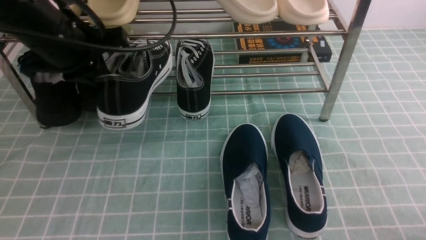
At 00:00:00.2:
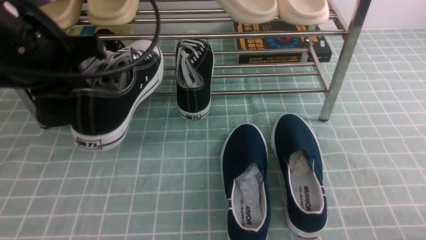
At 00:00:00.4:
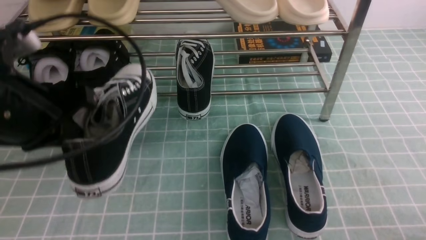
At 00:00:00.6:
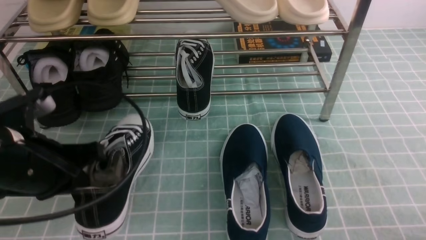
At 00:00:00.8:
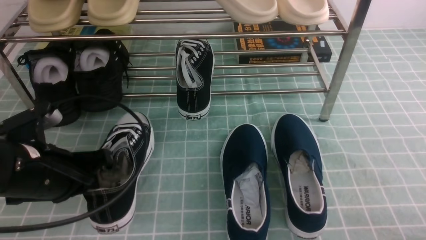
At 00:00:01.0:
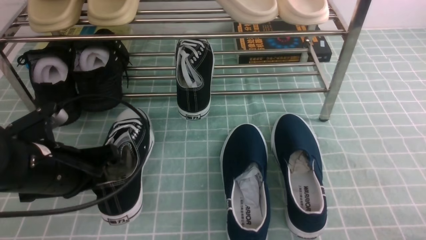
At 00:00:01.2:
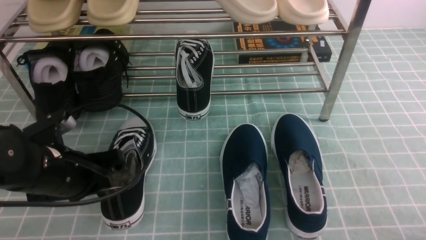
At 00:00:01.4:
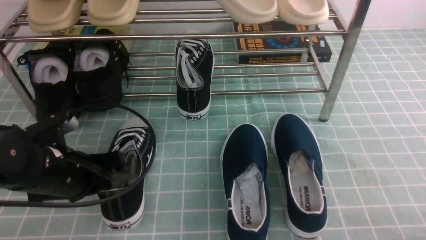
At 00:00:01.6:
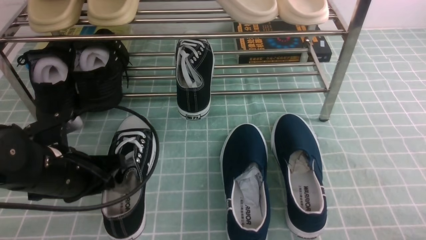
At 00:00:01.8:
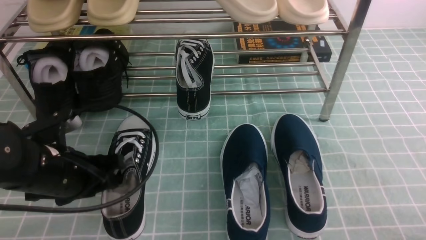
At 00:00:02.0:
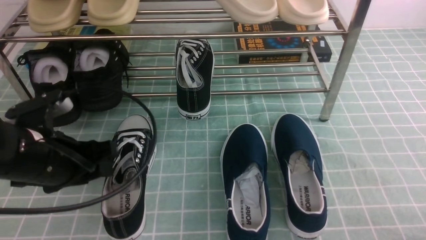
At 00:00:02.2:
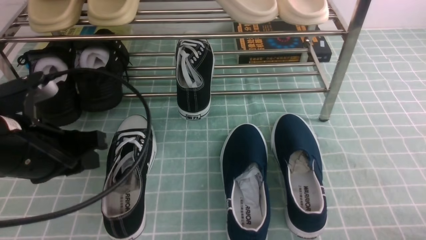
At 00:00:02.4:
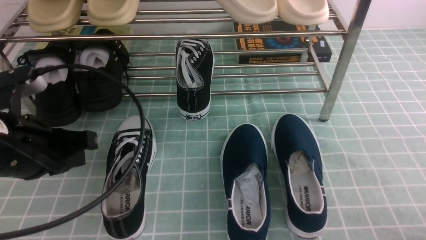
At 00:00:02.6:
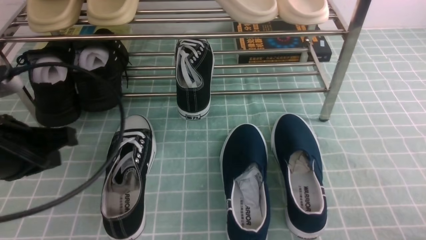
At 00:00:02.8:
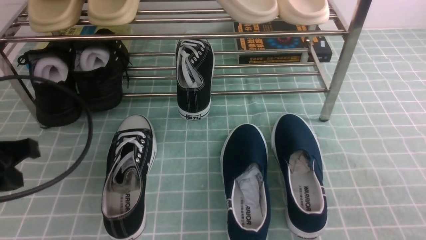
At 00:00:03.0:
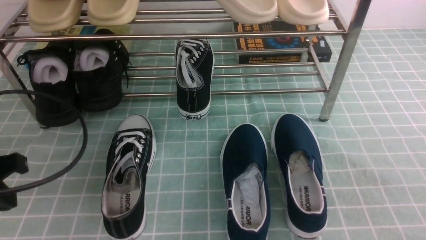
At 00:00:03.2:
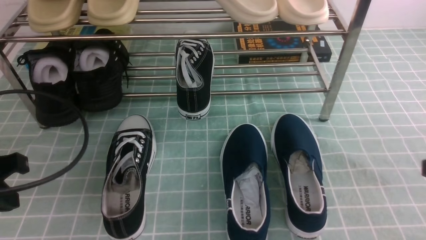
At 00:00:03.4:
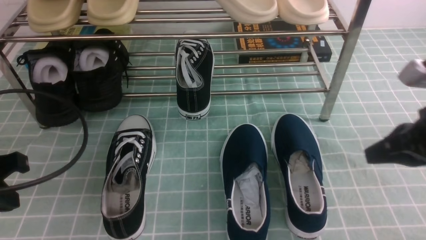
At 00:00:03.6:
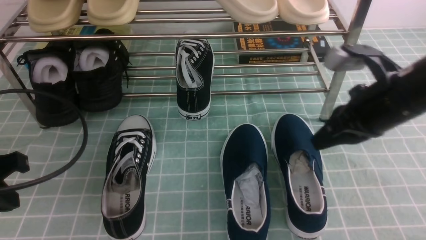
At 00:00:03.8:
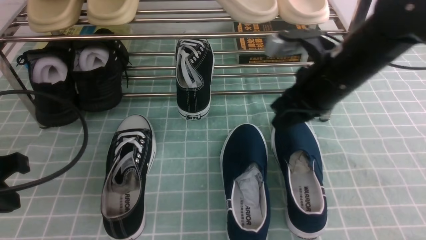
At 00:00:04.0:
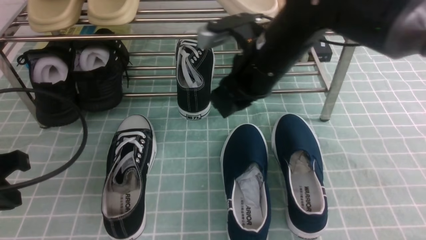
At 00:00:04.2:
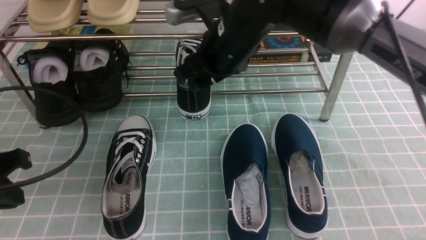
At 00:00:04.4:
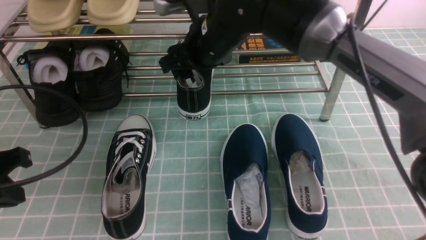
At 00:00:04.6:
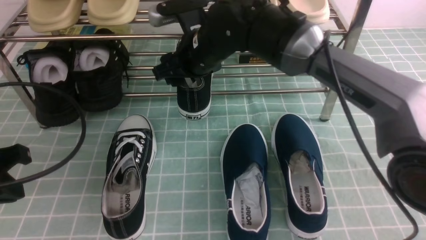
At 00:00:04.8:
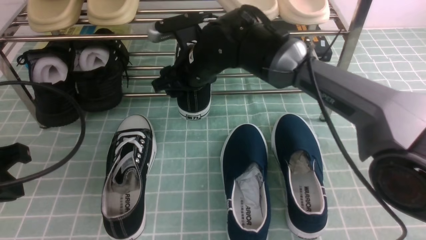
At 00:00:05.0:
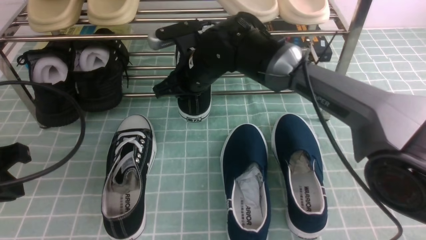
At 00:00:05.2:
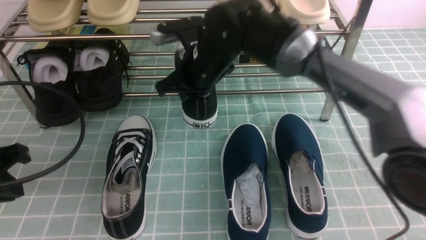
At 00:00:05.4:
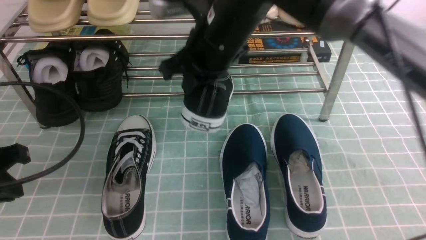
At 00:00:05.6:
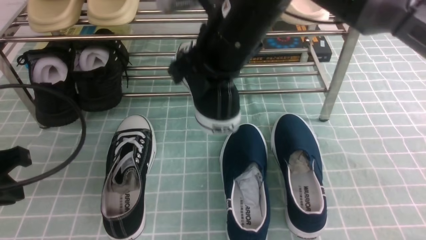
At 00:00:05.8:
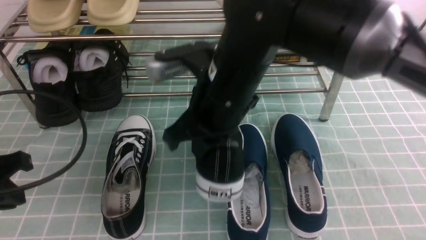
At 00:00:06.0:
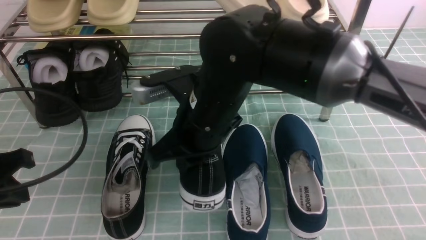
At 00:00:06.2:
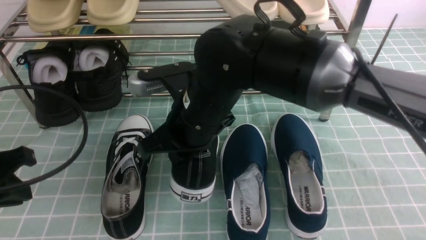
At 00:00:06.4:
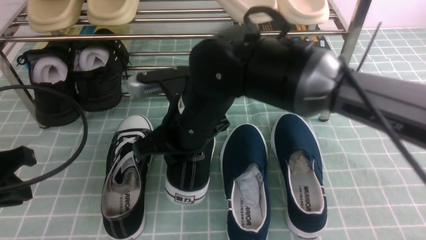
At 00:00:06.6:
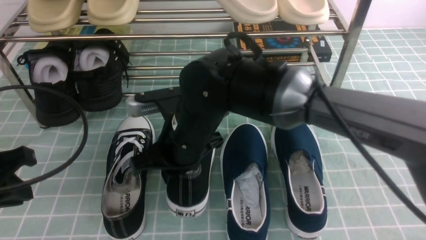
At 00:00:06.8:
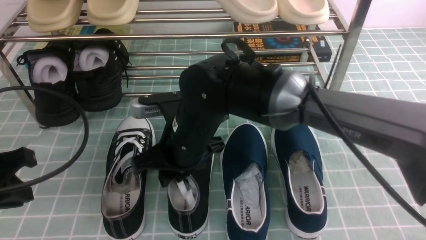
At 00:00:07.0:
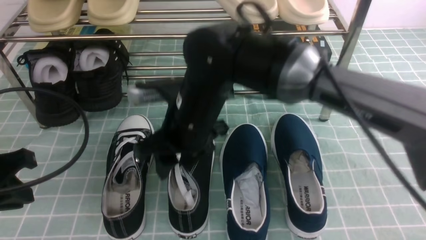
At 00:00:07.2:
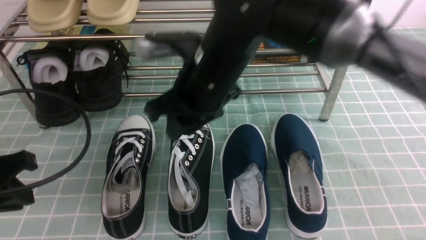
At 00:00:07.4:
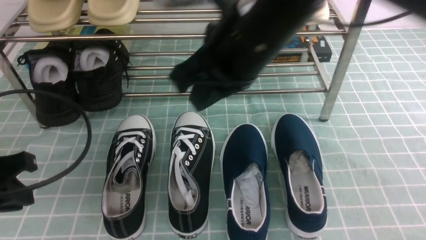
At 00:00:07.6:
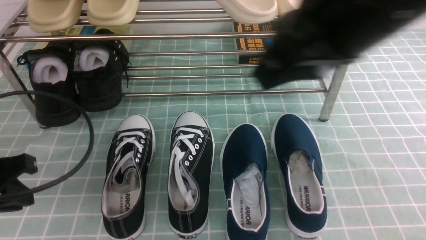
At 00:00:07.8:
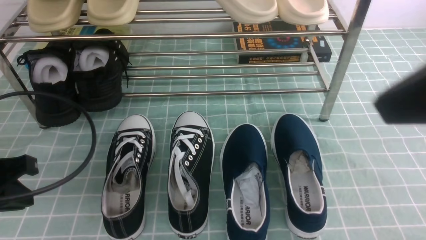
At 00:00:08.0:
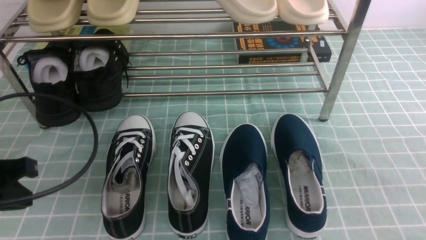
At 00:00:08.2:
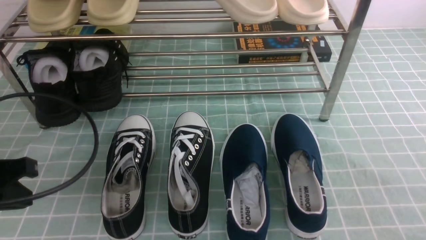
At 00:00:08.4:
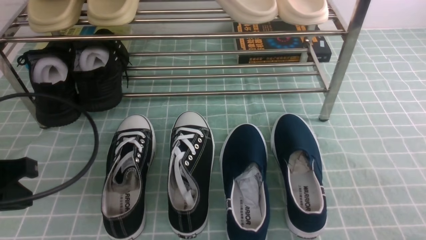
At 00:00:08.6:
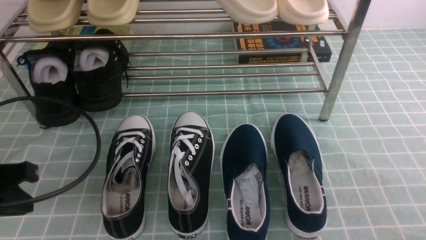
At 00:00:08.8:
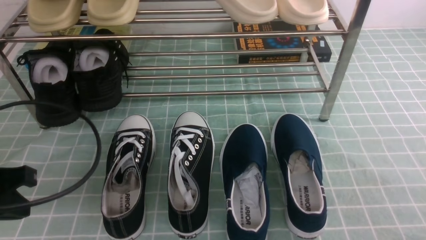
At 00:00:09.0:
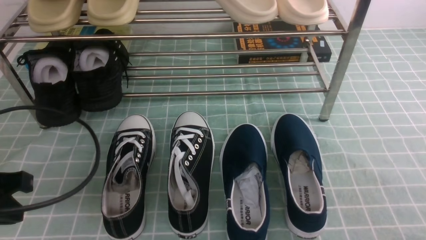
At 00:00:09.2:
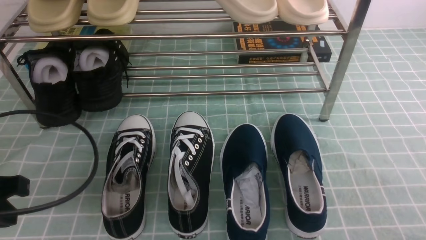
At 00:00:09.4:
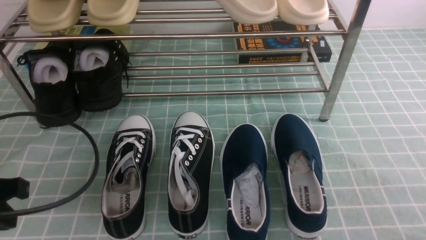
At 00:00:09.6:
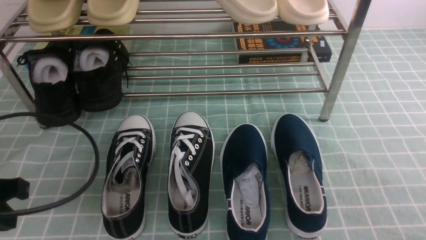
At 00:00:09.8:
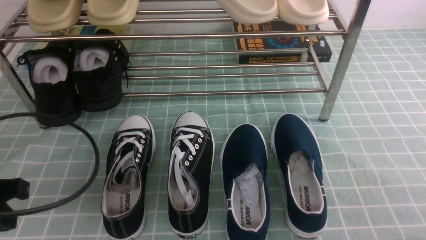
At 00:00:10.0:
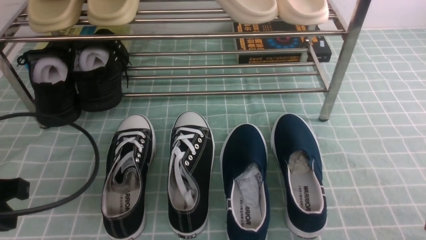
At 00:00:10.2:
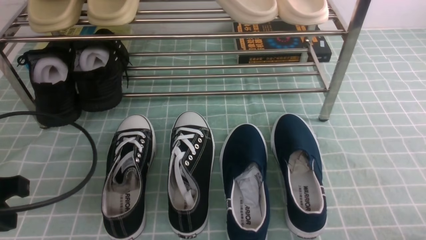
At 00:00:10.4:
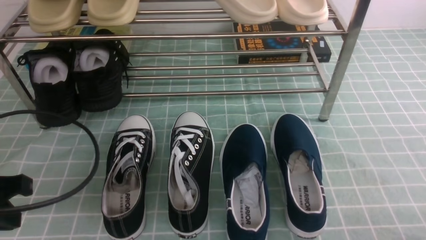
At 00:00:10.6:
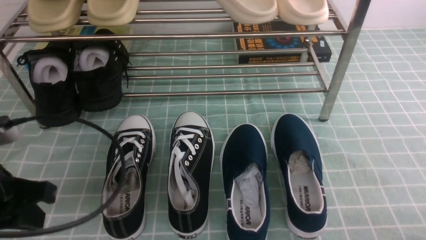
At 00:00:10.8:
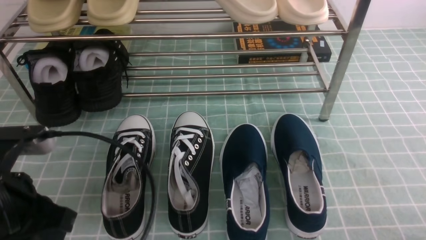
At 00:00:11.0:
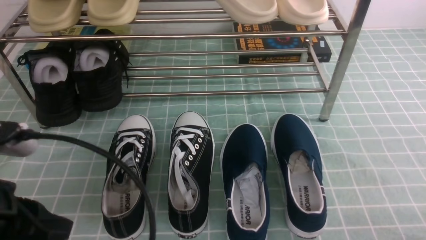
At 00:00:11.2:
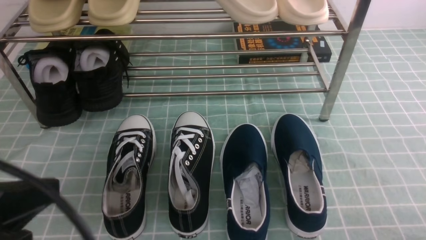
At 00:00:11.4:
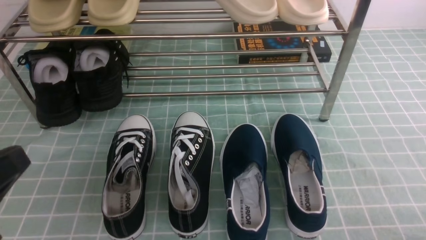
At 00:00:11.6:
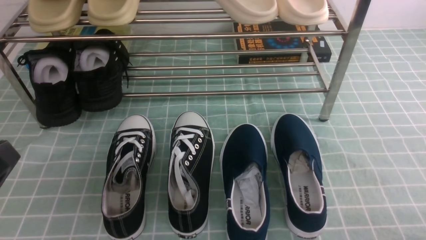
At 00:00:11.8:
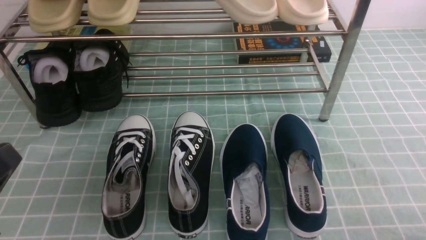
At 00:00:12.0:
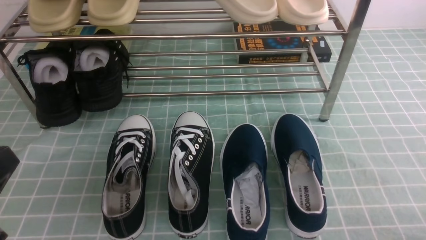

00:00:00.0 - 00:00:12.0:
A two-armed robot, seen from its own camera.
Step, 00:00:00.0 - 00:00:02.0: Use your left arm to remove the clamped shoe from the shoe rack and put it down.
Step, 00:00:02.2 - 00:00:05.0: use the right arm to clamp a shoe in the middle of the shoe rack.
00:00:00.0 - 00:00:01.6: The left gripper heads downward and backward, covering some 15 cm, and opens up.
00:00:01.6 - 00:00:03.0: The left gripper travels to the left, upward and backward by roughly 10 cm, and closes.
00:00:03.0 - 00:00:04.4: The right gripper goes roughly 40 cm to the left and forward, and opens.
00:00:04.4 - 00:00:06.0: The right gripper shifts approximately 10 cm backward, and closes up.
00:00:06.0 - 00:00:07.6: The right gripper shifts some 25 cm upward, to the right and backward, and opens, then closes again.
00:00:07.6 - 00:00:09.0: The right gripper shifts approximately 30 cm downward, to the right and backward.
00:00:10.4 - 00:00:12.0: The left gripper is displaced backward by some 10 cm.

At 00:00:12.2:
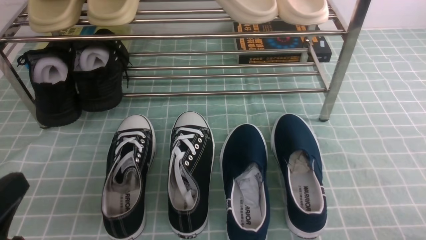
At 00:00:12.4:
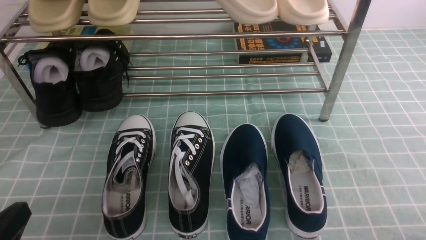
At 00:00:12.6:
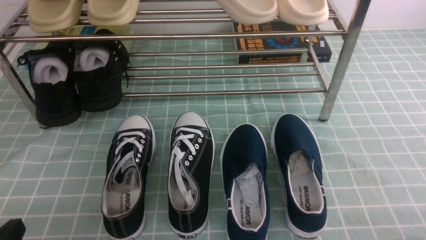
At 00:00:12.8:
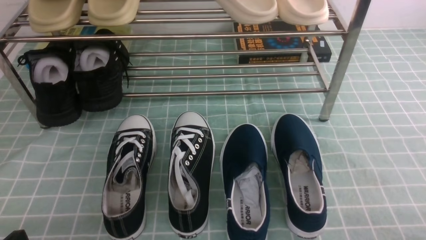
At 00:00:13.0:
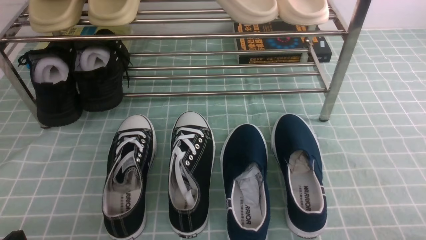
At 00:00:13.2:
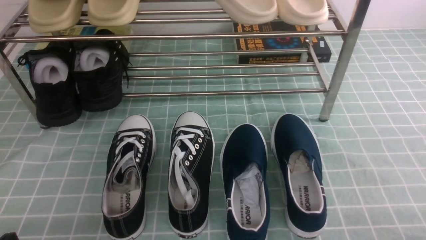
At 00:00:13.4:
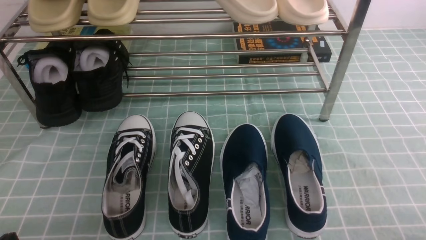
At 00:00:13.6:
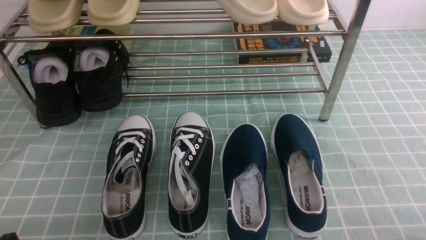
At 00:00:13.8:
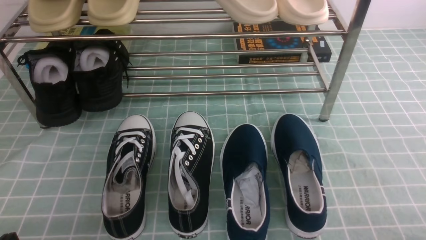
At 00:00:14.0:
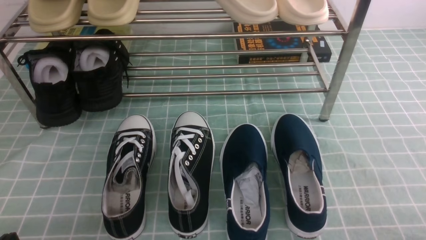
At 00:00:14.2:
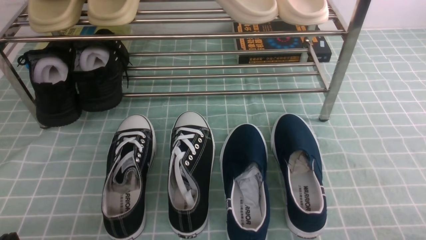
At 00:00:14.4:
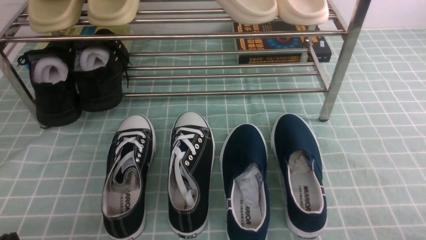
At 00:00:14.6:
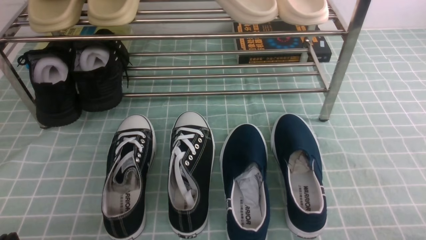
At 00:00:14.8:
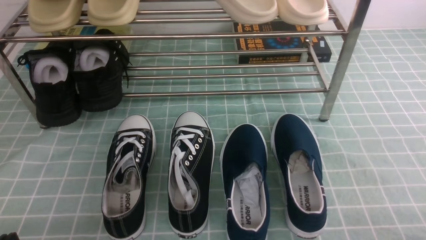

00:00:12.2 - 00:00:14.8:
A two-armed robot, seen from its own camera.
00:00:12.2 - 00:00:13.4: The left gripper goes roughly 10 cm downward.
00:00:13.4 - 00:00:14.8: Both grippers stay about where they are.
